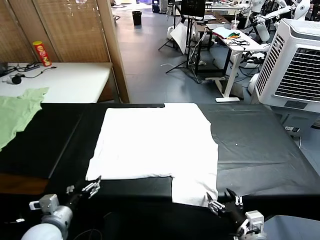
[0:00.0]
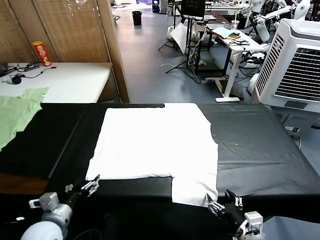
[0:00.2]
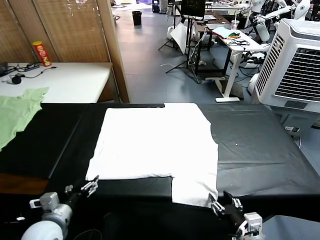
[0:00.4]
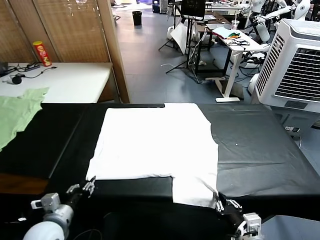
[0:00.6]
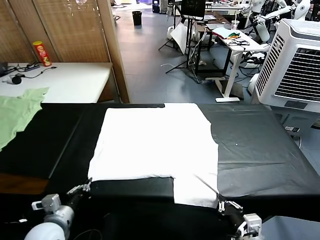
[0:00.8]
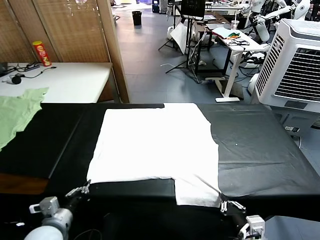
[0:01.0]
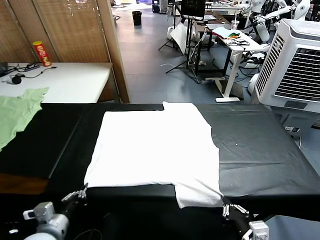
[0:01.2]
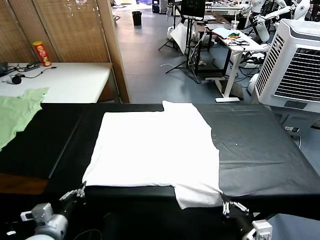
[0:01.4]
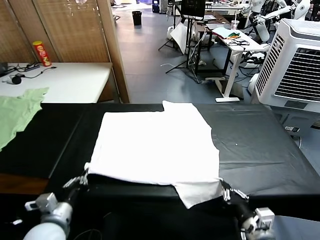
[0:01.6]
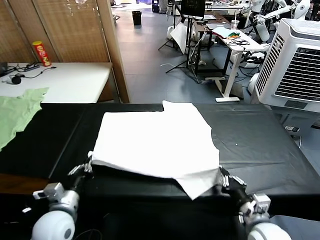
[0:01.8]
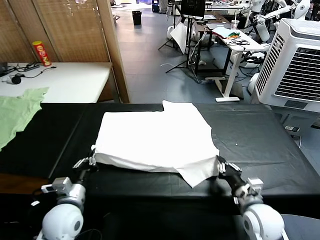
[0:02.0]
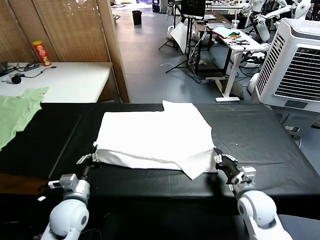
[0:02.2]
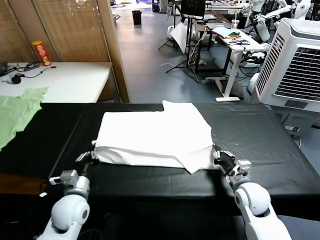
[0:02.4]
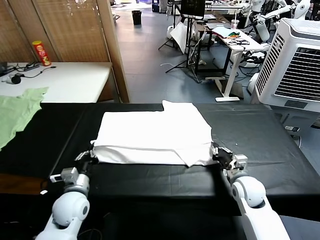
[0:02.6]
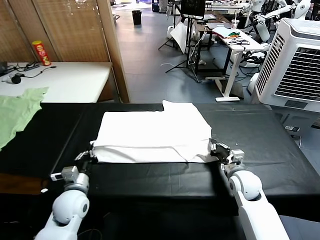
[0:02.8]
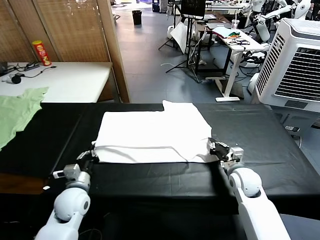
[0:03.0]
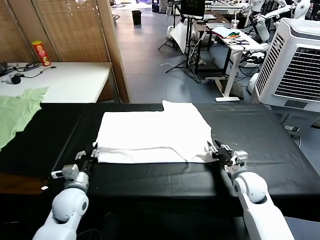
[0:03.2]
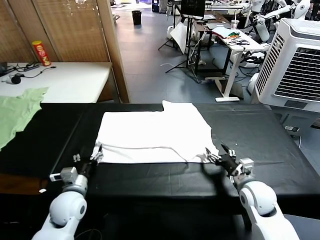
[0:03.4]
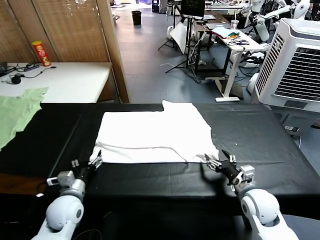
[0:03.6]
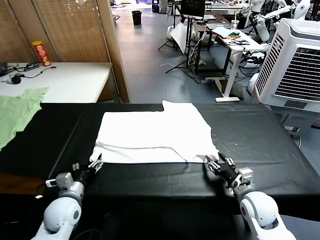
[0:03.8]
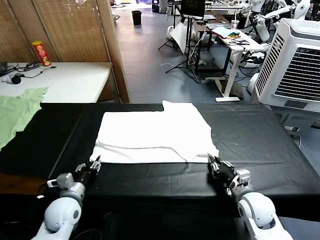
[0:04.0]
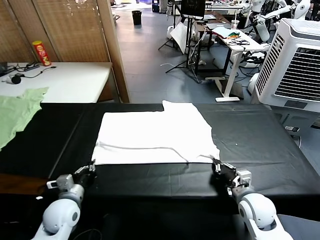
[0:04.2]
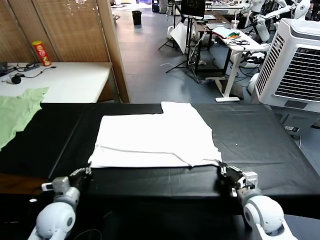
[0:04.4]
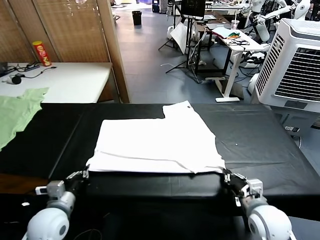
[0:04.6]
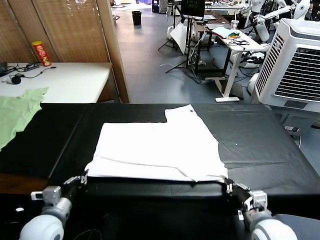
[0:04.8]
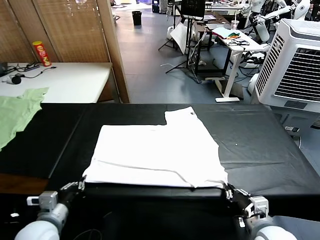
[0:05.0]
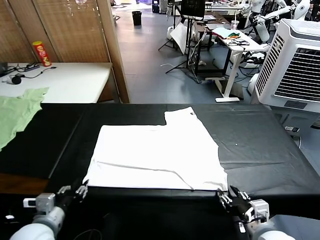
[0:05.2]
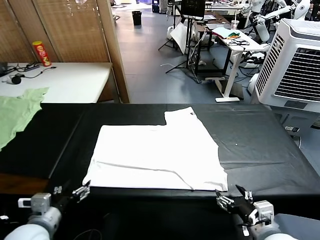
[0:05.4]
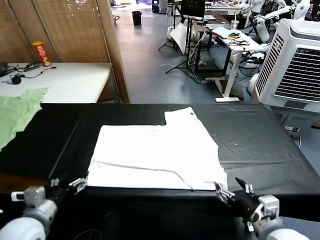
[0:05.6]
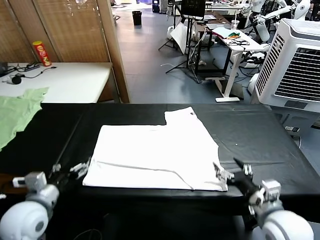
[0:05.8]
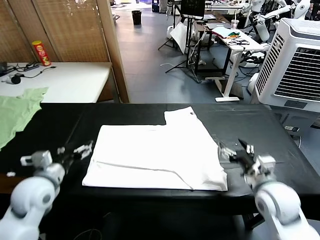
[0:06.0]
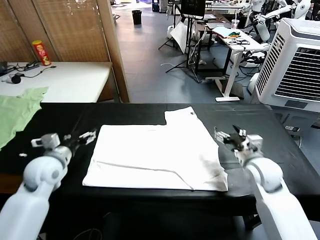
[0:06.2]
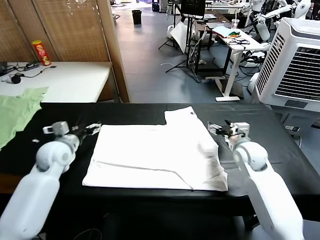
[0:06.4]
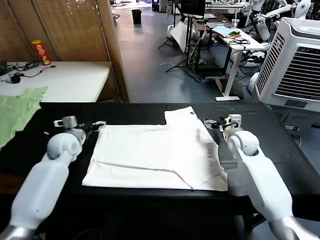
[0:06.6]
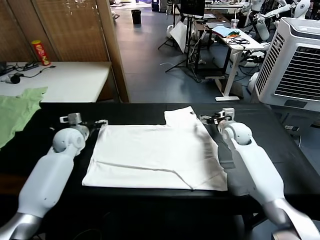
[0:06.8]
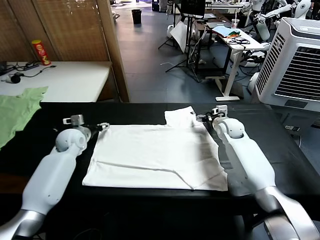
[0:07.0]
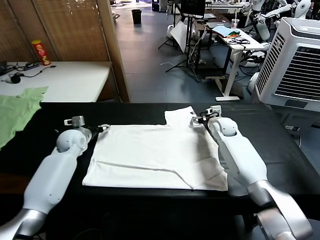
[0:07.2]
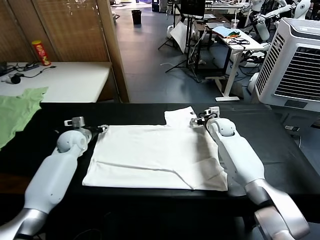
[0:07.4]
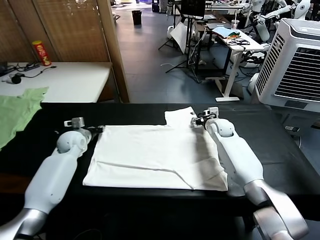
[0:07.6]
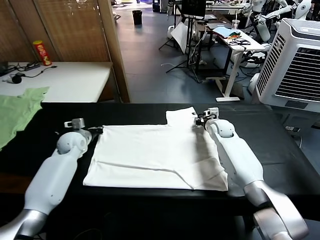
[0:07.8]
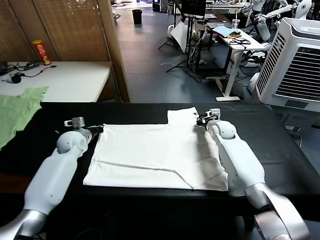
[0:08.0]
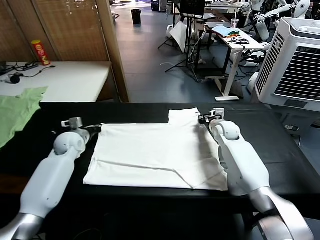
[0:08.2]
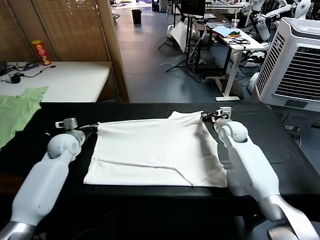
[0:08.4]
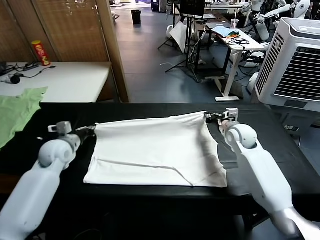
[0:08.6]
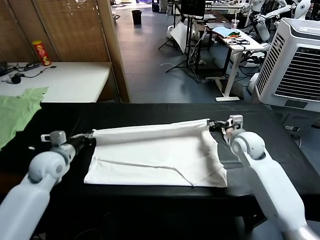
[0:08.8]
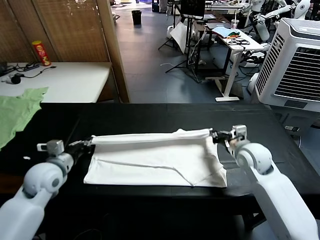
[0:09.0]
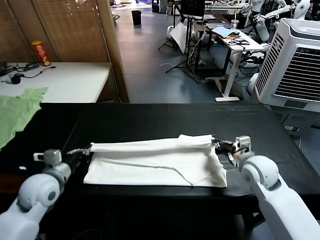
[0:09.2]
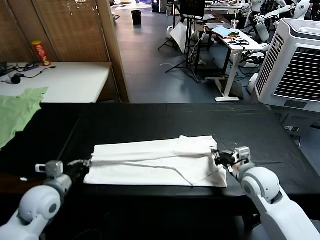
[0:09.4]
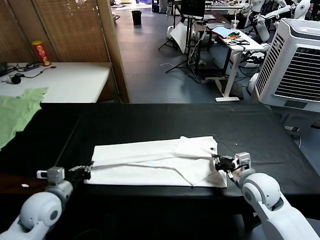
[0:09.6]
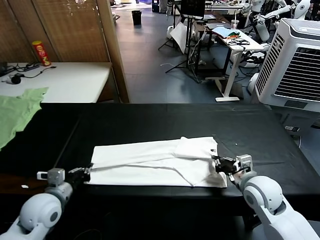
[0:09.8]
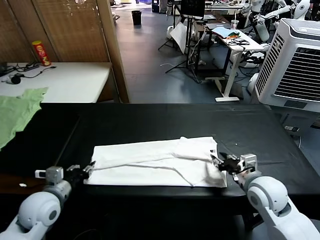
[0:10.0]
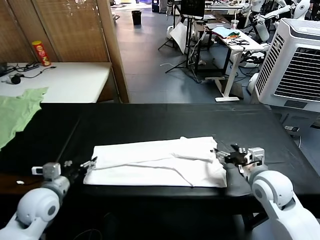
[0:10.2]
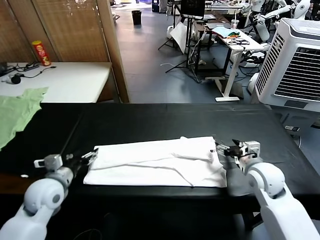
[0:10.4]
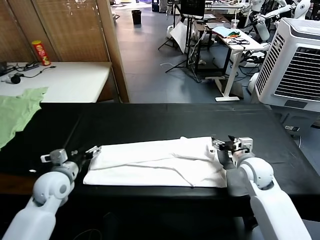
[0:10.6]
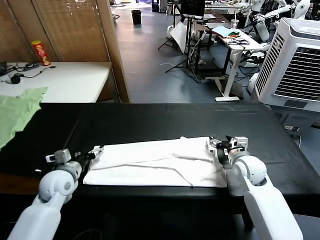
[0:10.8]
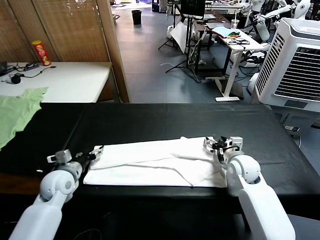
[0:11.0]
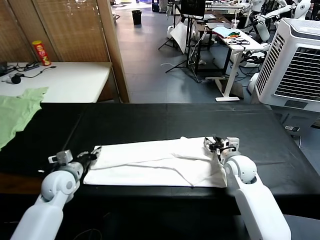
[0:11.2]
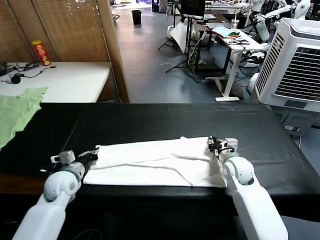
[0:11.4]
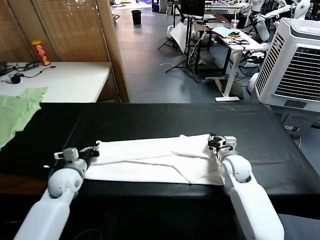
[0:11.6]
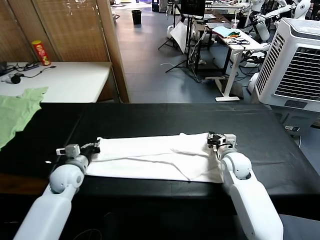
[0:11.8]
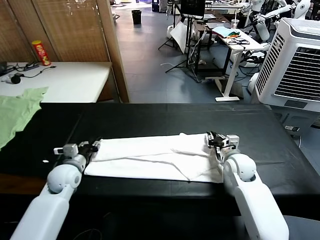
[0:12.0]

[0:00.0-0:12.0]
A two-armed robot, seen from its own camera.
Task of the whole recording: fold and organize the clothes.
Step, 0:00.0 to 0:01.0: use both grippers simultaneously to clamp the lower edge of the clothing fabric.
Step, 0:01.2 to 0:03.2: use both grippers to drag the lower edge of the fabric forward and fold it over the upper edge.
Step, 0:03.6 to 0:05.4: Drag the clothes downward with both gripper.
Step, 0:05.6 to 0:07.8: use both grippers simultaneously to clamp the upper edge of the clothing fabric.
Step, 0:08.0 to 0:10.0: use both grippers to drag the upper edge of the fabric backward and fold it over the lower edge.
0:01.6 to 0:03.0: The right gripper moves forward, about 15 cm, and opens. The left gripper is displaced forward by some 10 cm.
0:03.0 to 0:04.4: The right gripper goes approximately 10 cm backward, and closes up, while the left gripper travels backward by roughly 5 cm, and opens and closes again.
0:04.4 to 0:06.0: The left gripper heads upward and forward, covering about 10 cm, and opens its fingers. Meanwhile the right gripper heads forward and upward, covering roughly 10 cm, and opens up.
0:06.0 to 0:07.6: The two grippers go roughly 25 cm forward. The left gripper closes its fingers. Meanwhile the right gripper closes.
0:07.6 to 0:09.0: The two grippers go about 20 cm backward. The right gripper closes its fingers.
0:09.0 to 0:10.4: The right gripper goes backward and returns, some 10 cm each way, and opens, while the left gripper opens up.
0:10.4 to 0:12.0: The right gripper travels downward and forward by about 5 cm, and closes its fingers. The left gripper travels forward and downward by approximately 10 cm, and closes up.

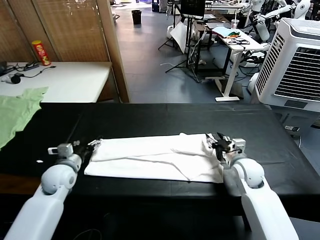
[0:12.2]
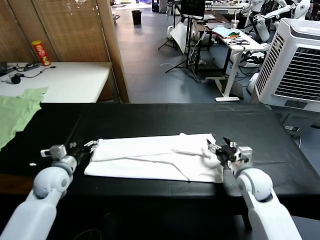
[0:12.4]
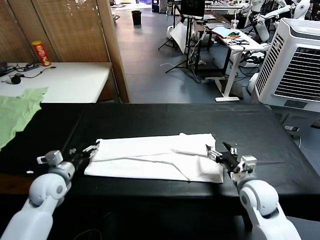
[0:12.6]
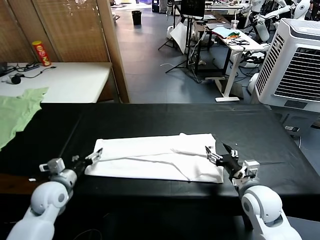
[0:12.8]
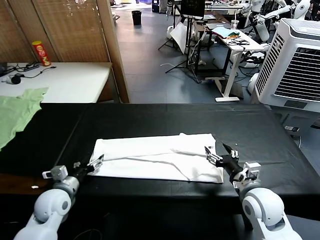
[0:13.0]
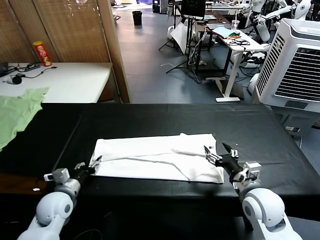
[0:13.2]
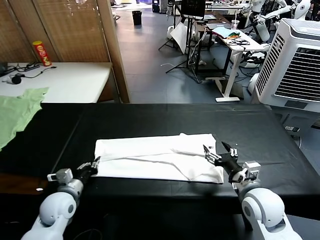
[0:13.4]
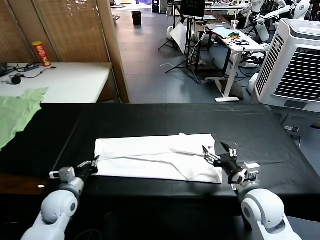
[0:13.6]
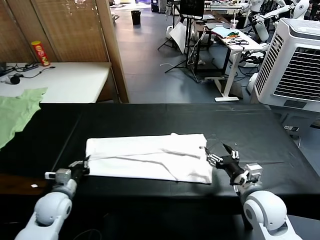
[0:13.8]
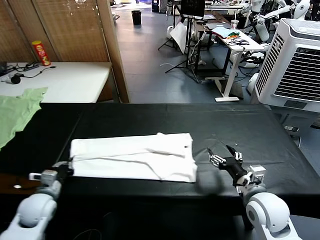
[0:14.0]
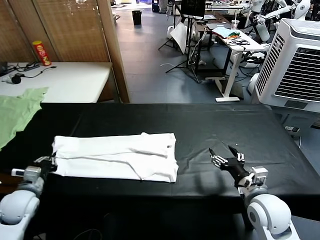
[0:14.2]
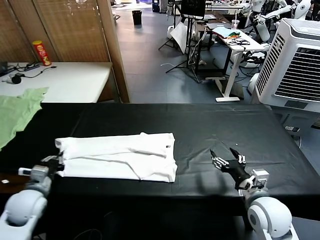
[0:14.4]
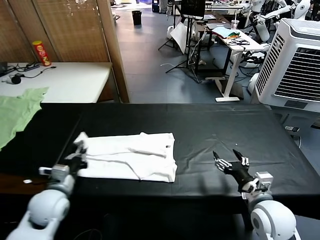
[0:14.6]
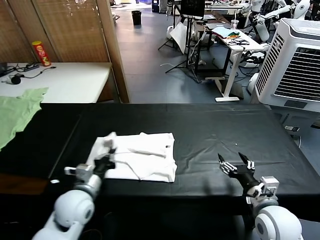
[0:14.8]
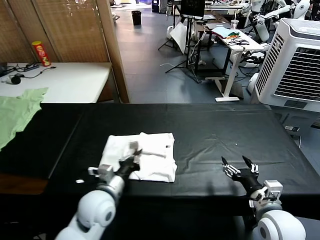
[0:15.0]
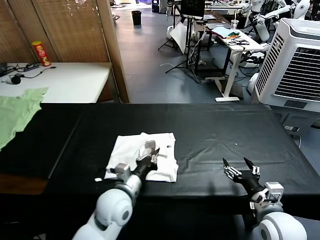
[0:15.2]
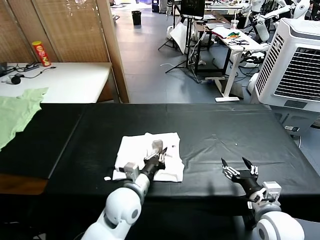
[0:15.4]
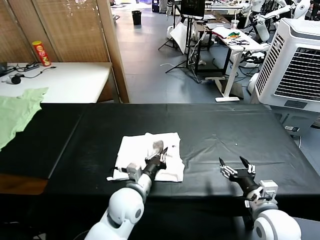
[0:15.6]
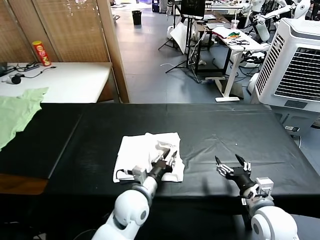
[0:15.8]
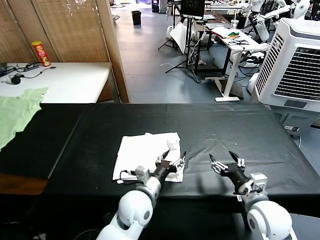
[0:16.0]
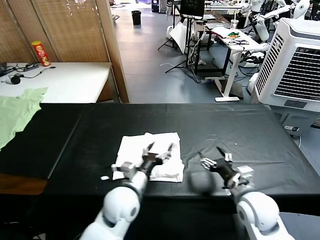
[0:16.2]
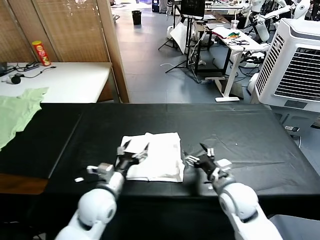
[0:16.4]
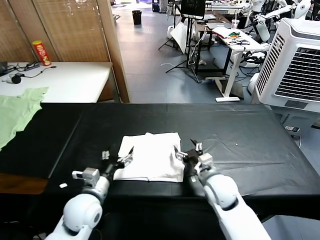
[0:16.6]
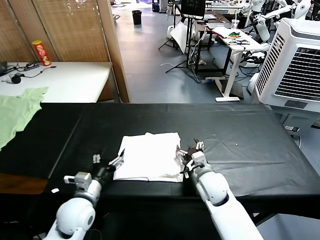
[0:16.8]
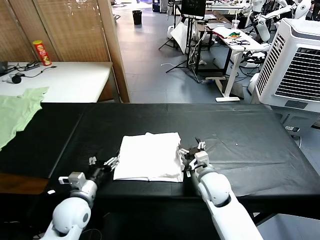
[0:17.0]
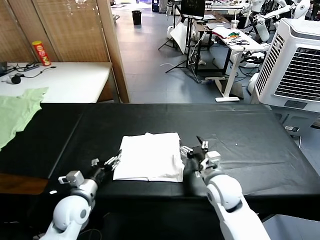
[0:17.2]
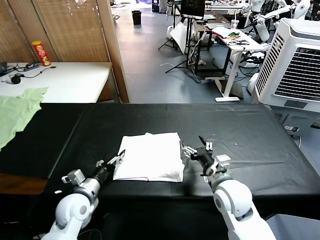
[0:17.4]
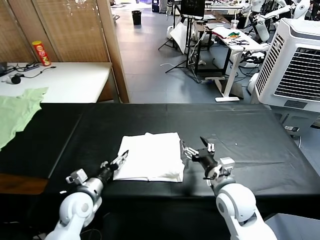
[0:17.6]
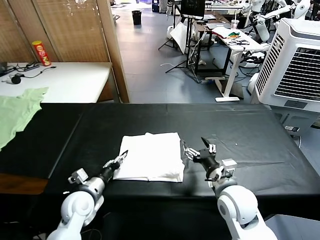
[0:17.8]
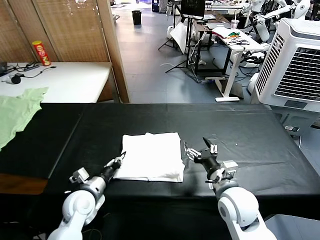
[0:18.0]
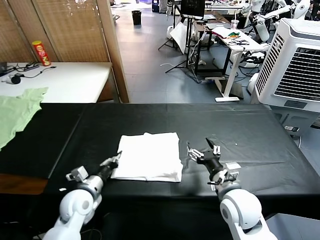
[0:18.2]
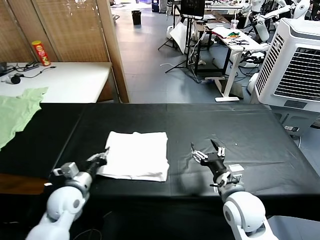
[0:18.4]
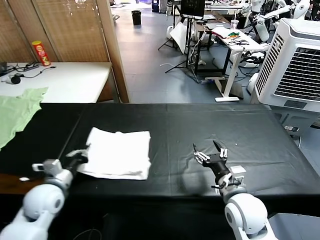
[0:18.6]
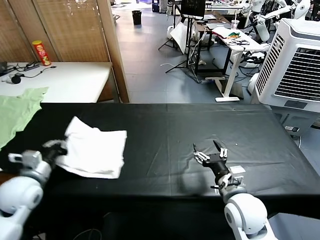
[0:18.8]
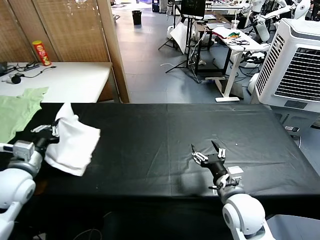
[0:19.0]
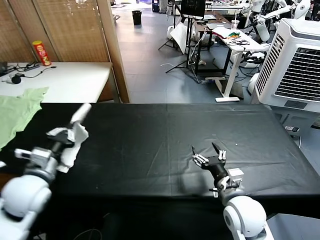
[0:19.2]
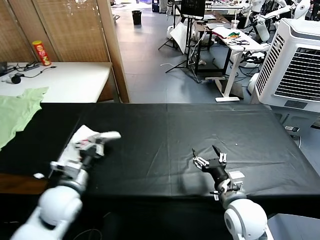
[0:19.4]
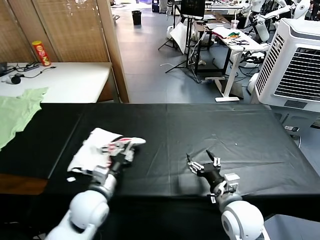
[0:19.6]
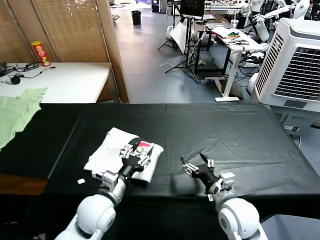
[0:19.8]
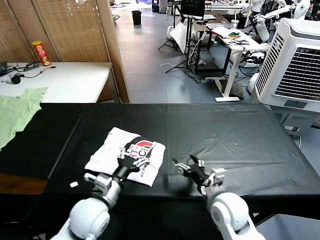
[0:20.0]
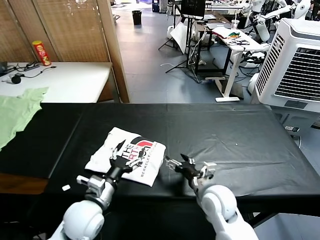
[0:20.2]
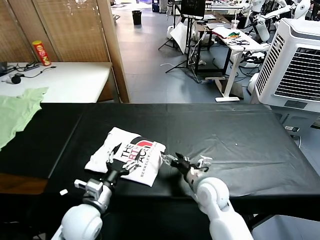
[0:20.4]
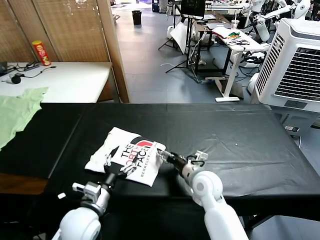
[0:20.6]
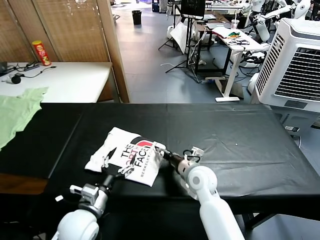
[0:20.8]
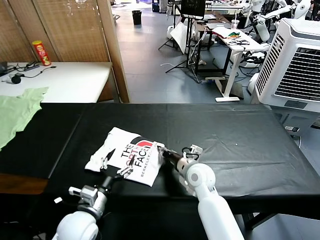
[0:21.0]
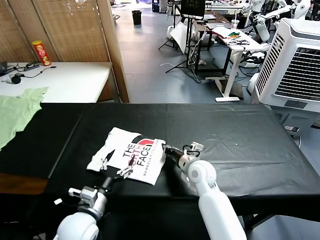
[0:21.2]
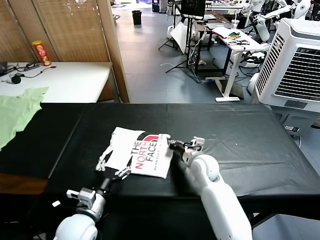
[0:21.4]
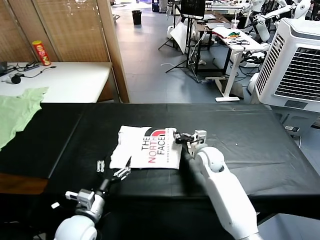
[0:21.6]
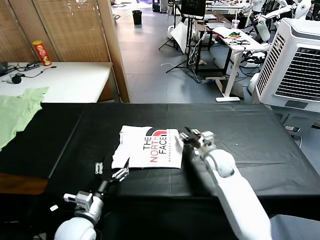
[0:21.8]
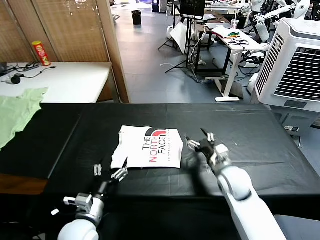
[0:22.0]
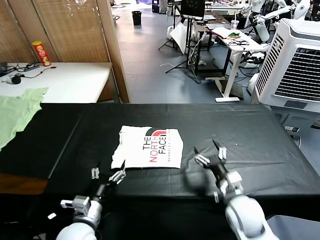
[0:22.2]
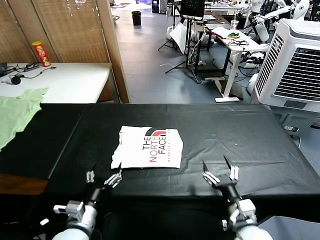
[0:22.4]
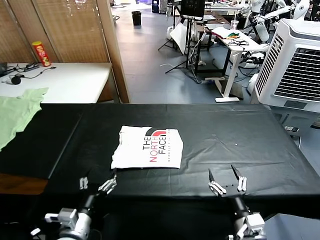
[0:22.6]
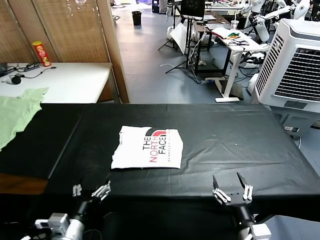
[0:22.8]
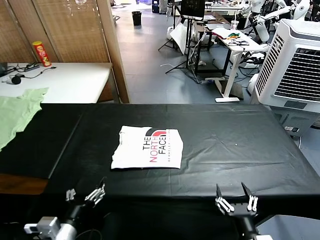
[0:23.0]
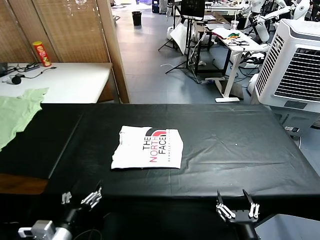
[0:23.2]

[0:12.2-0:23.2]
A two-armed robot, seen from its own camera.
Task of the whole recording: fold and organize the clothes.
Step, 0:13.6 to 0:15.8: use the left gripper to drag the left edge of the fabric to the left and folds it over the right edge.
Step, 0:16.0 to 0:19.6: Flip the folded clothes over with left gripper.
Step, 0:19.8 to 0:21.6: Drag the clothes to the center of the table.
0:12.2 to 0:13.8: The right gripper goes approximately 10 cm backward; the left gripper goes about 10 cm backward, and closes its fingers.
0:13.8 to 0:15.4: The right gripper shifts by roughly 5 cm. The left gripper goes roughly 25 cm to the right.
0:15.4 to 0:17.0: The right gripper shifts roughly 20 cm forward and to the left, while the left gripper goes some 15 cm to the left, and opens up.
0:17.0 to 0:18.4: The right gripper shifts roughly 10 cm backward and upward. The left gripper closes its fingers.
0:18.4 to 0:20.0: The left gripper is displaced to the right by about 10 cm, and opens its fingers.
0:20.0 to 0:21.6: The right gripper goes roughly 20 cm forward, and closes up, while the left gripper shifts by about 5 cm.
0:21.6 to 0:23.2: The left gripper shifts about 10 cm backward. Meanwhile the right gripper heads backward, covering approximately 35 cm, and opens up.
